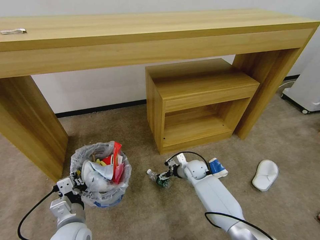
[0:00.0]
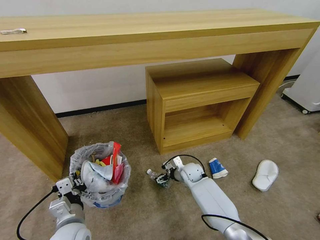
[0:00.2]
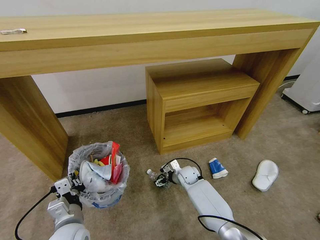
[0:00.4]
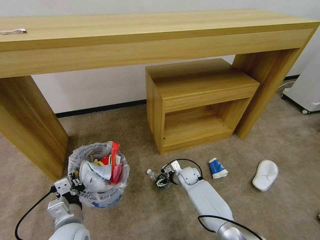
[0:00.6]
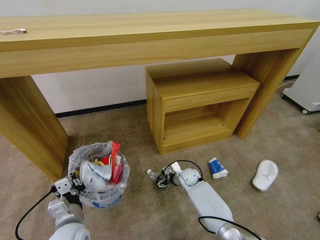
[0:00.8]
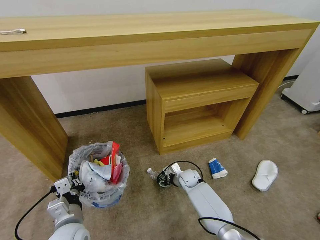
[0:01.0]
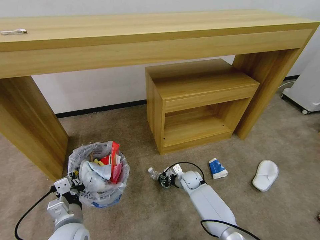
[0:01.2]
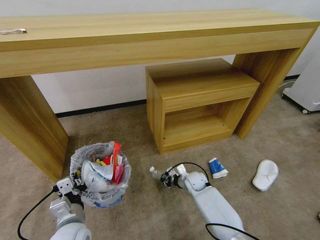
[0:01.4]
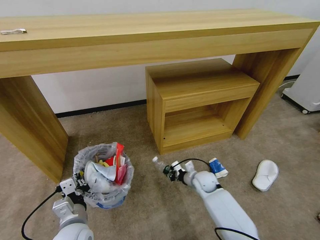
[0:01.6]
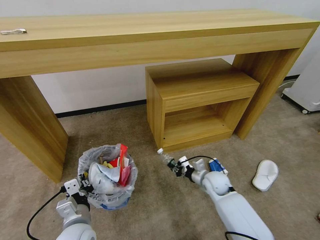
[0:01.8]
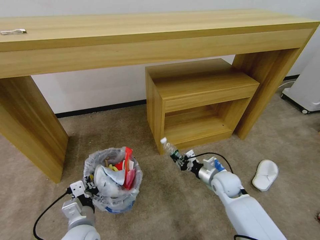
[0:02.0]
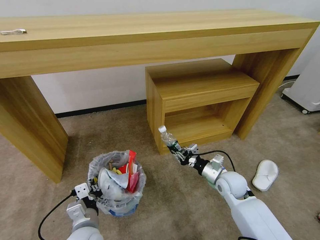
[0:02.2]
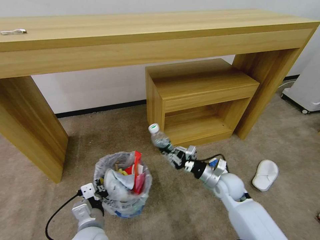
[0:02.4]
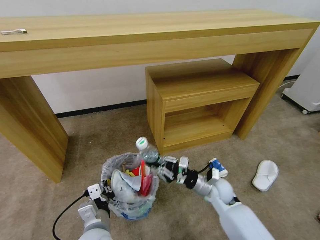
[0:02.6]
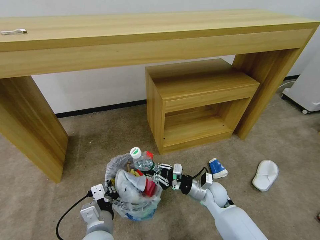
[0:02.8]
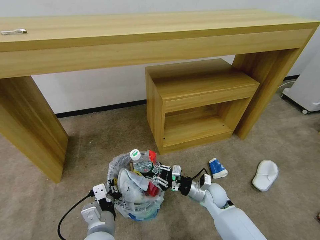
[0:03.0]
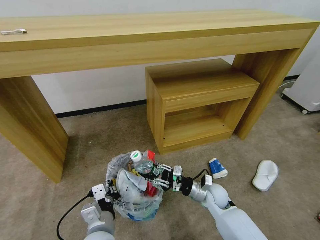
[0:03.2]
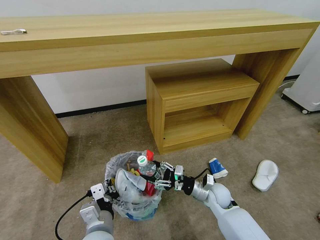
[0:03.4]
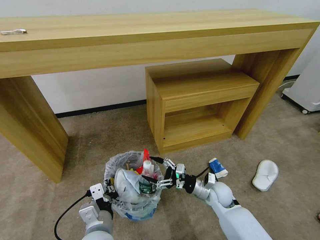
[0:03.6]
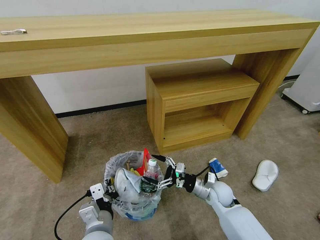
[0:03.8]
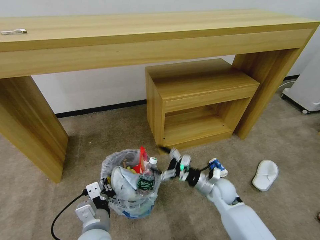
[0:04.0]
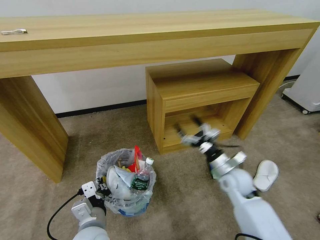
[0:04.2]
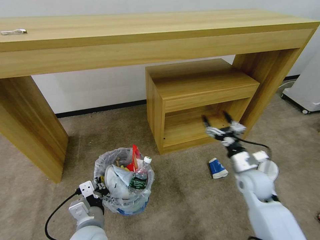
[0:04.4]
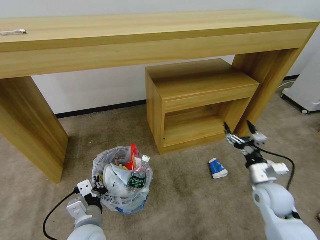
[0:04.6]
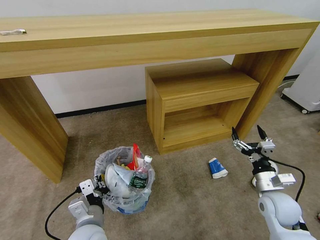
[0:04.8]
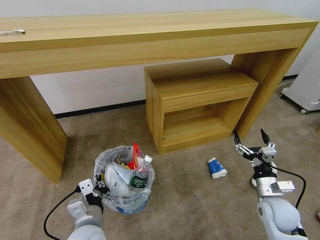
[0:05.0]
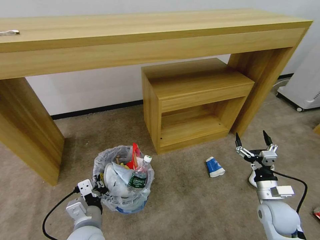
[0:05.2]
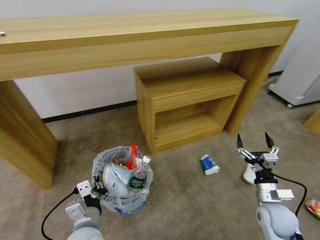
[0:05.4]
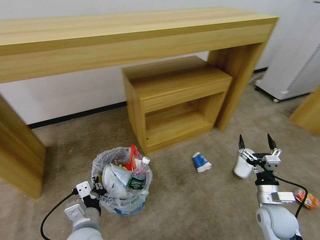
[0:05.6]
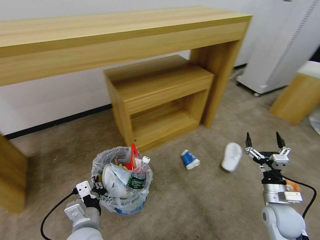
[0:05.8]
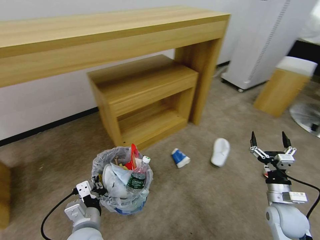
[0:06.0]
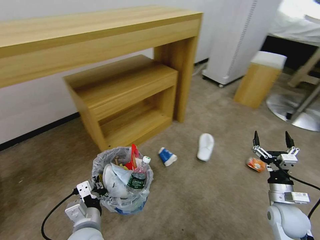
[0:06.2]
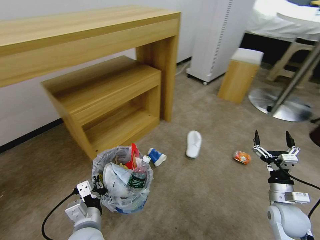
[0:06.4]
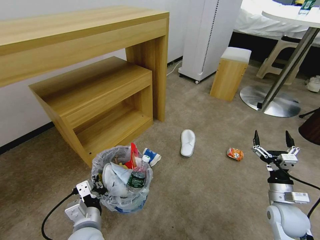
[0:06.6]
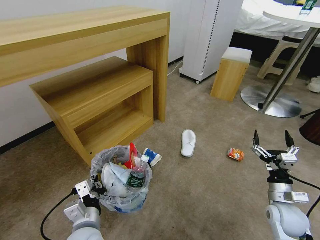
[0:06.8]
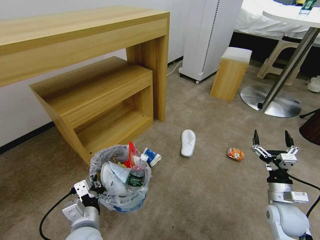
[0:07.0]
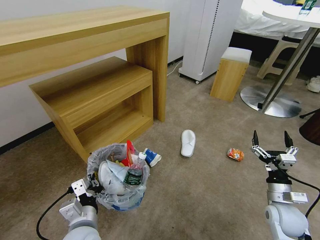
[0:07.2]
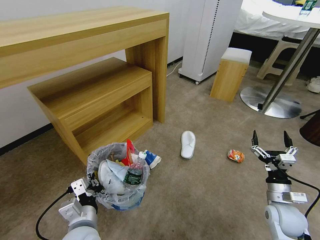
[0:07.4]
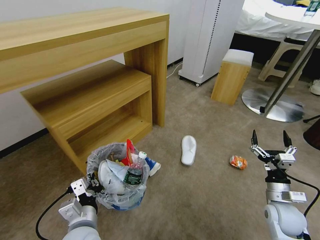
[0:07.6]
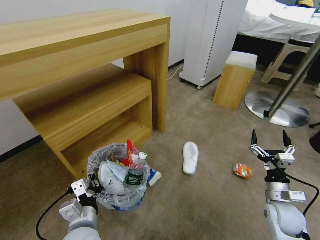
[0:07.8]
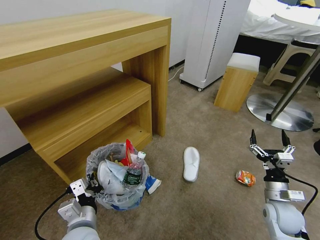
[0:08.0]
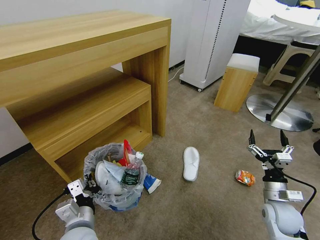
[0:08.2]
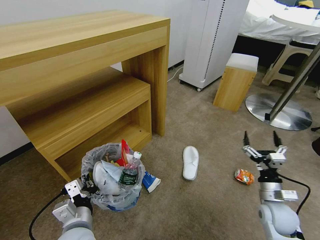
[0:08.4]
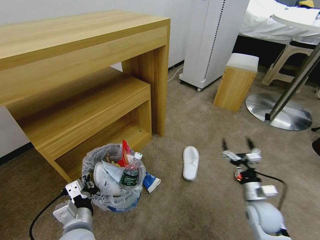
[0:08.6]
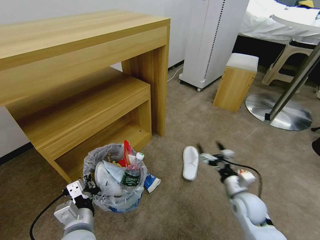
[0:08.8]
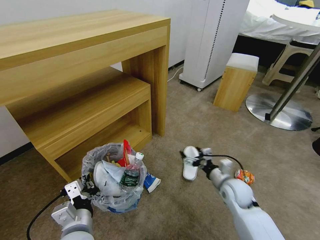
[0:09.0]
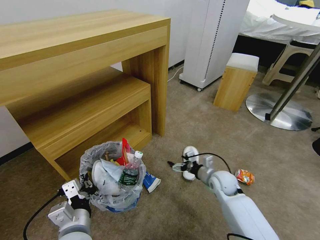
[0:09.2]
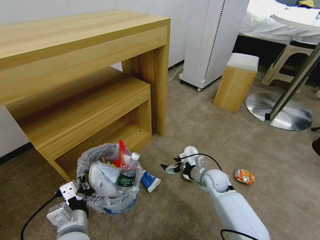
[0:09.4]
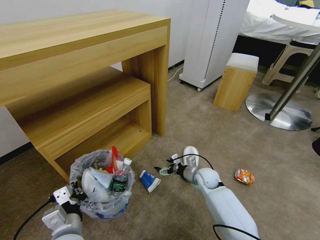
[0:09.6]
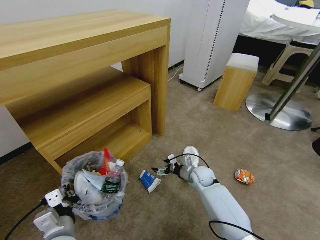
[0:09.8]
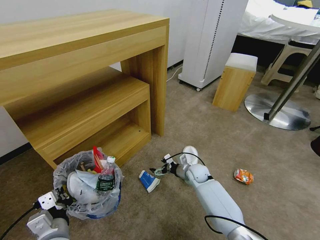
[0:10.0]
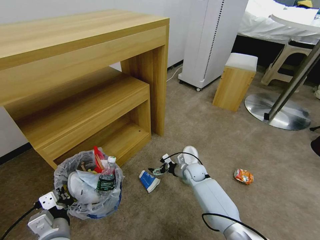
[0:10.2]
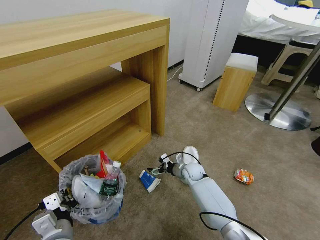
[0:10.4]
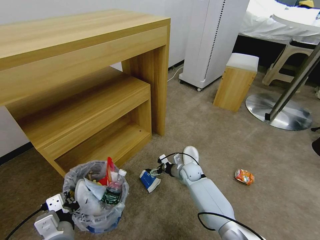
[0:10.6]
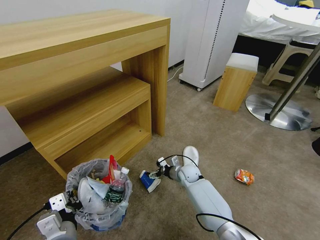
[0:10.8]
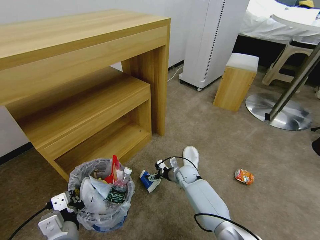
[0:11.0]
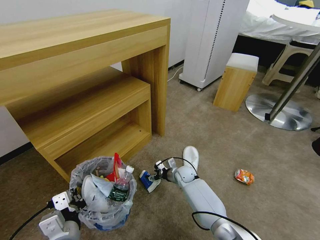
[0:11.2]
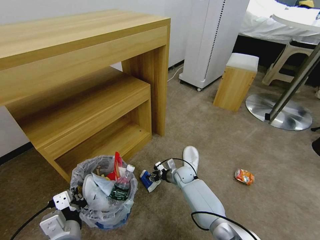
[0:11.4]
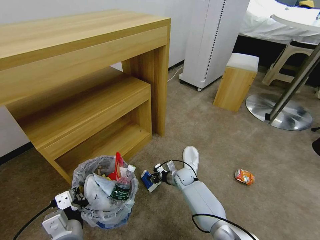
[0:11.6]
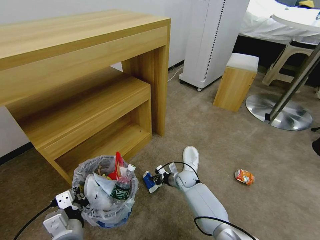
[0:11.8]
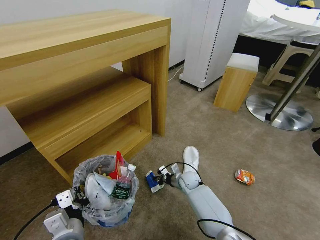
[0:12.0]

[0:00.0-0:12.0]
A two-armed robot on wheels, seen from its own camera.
Task of the whole recording: Pick up the trash bin and place the garbage on the floor into it.
0:00.0 to 0:01.6: The right gripper goes roughly 5 cm backward, and closes.
0:01.6 to 0:03.0: The left gripper goes about 10 cm to the right. The right gripper goes about 5 cm backward.
0:03.0 to 0:04.4: The right gripper heads to the right and upward, covering roughly 15 cm, and opens.
0:04.4 to 0:06.0: The right gripper travels backward, to the right and downward by some 15 cm.
0:07.6 to 0:09.0: The right gripper is displaced to the left and forward by approximately 15 cm.
0:09.0 to 0:10.4: The right gripper shifts approximately 20 cm forward, to the left and downward. The left gripper moves some 5 cm.
0:10.4 to 0:12.0: The right gripper closes its fingers.

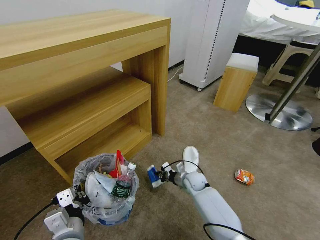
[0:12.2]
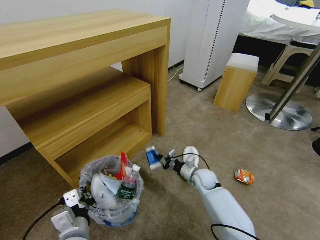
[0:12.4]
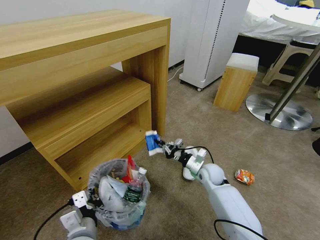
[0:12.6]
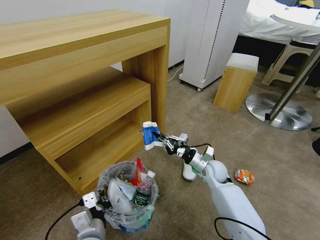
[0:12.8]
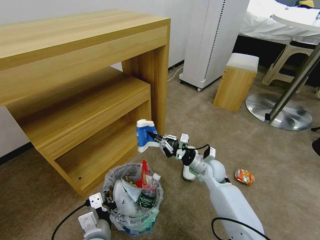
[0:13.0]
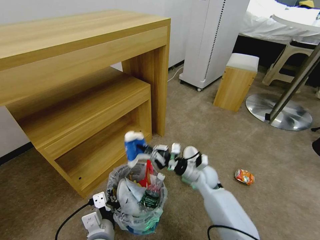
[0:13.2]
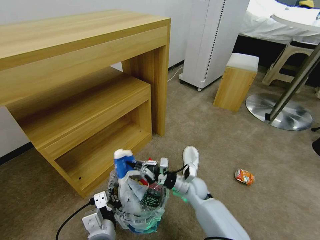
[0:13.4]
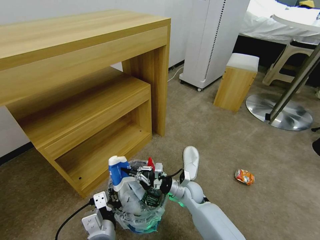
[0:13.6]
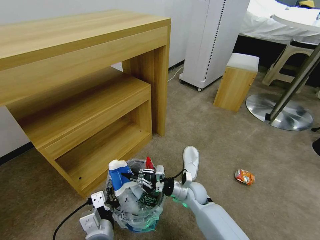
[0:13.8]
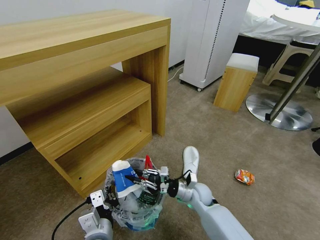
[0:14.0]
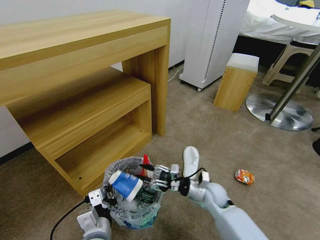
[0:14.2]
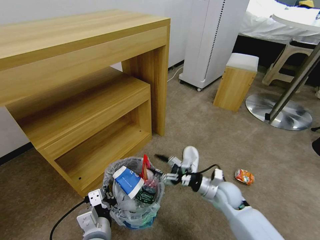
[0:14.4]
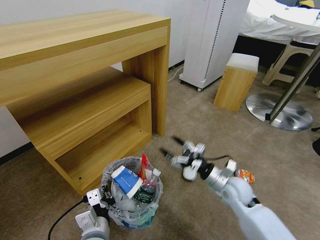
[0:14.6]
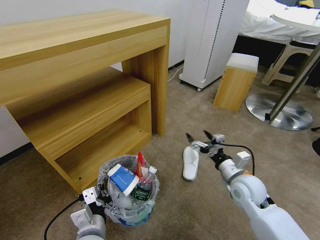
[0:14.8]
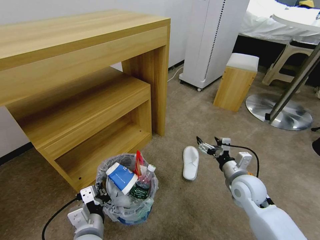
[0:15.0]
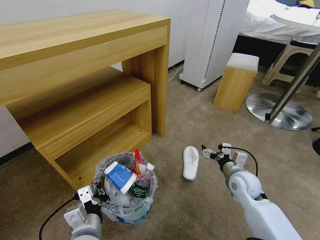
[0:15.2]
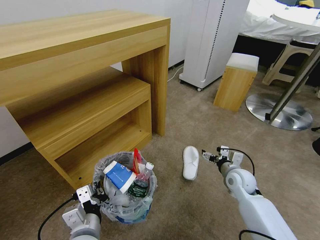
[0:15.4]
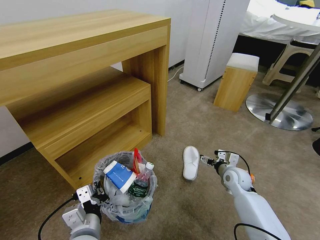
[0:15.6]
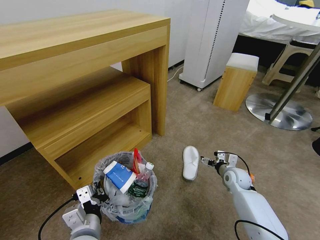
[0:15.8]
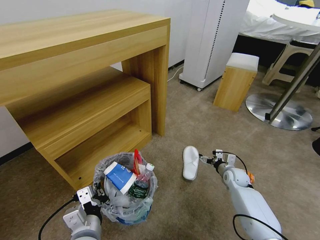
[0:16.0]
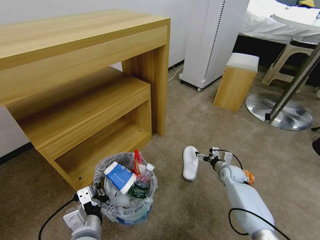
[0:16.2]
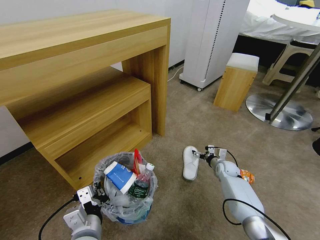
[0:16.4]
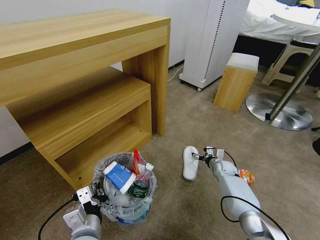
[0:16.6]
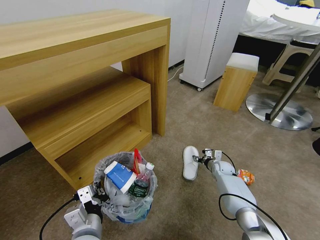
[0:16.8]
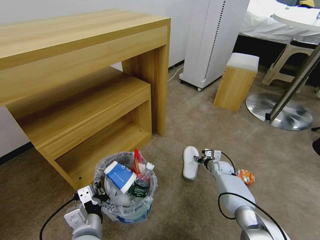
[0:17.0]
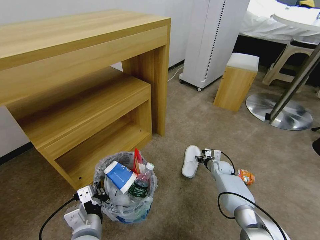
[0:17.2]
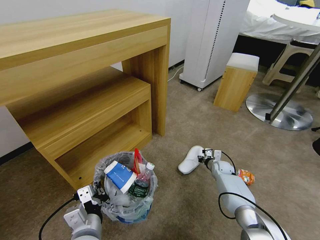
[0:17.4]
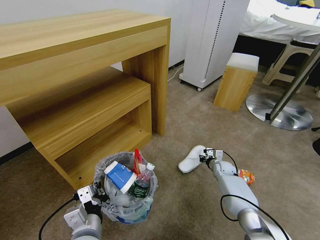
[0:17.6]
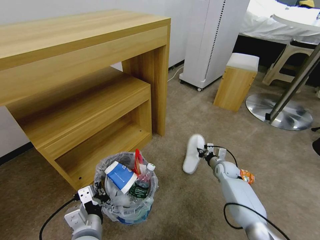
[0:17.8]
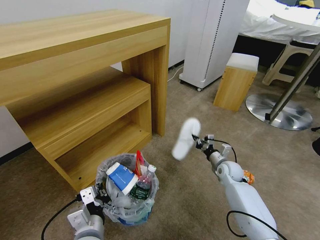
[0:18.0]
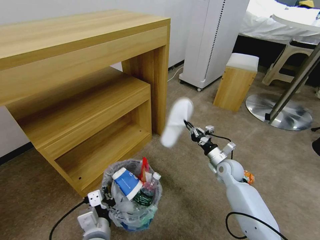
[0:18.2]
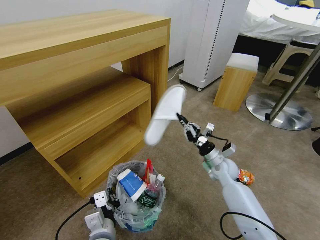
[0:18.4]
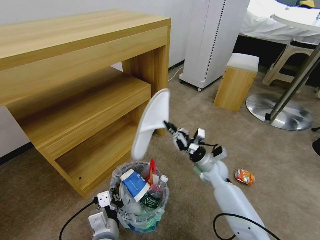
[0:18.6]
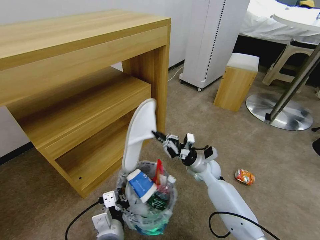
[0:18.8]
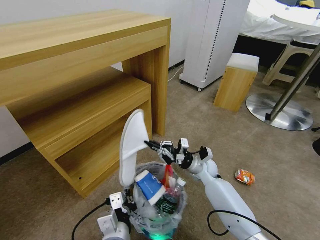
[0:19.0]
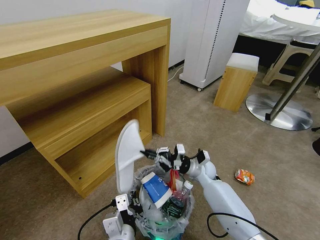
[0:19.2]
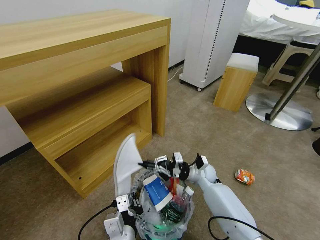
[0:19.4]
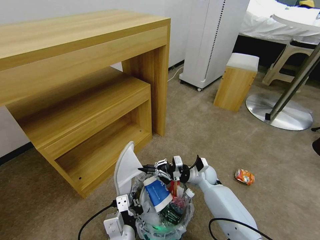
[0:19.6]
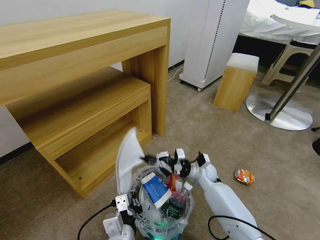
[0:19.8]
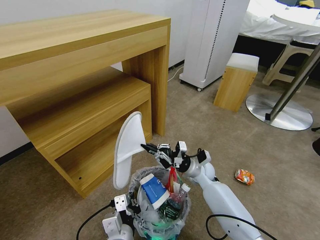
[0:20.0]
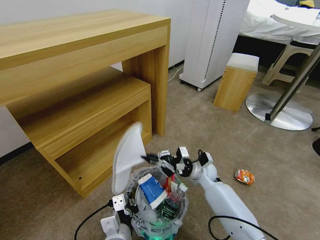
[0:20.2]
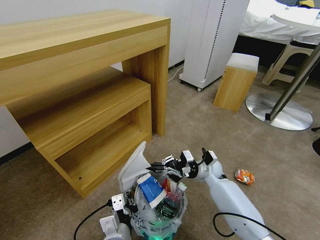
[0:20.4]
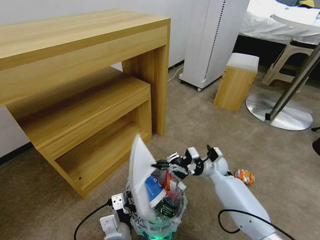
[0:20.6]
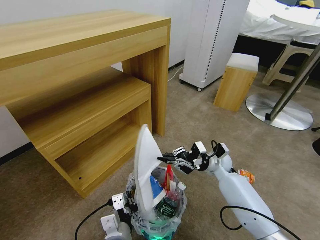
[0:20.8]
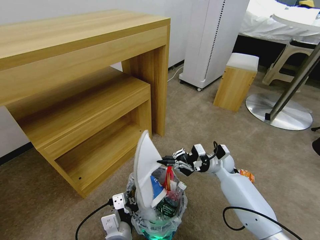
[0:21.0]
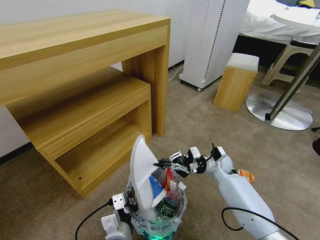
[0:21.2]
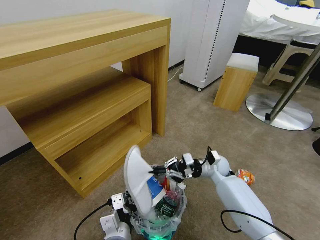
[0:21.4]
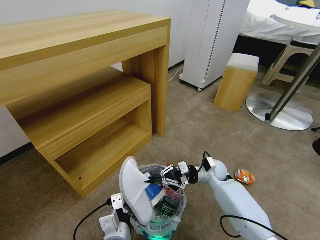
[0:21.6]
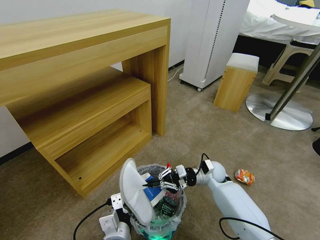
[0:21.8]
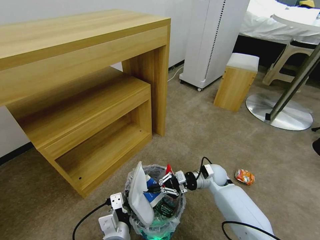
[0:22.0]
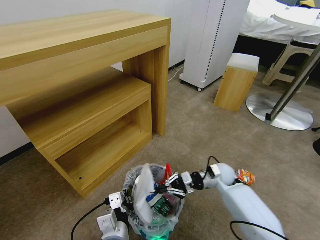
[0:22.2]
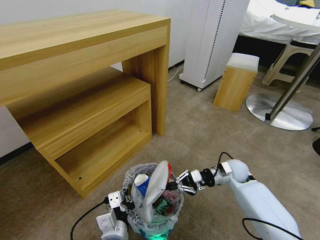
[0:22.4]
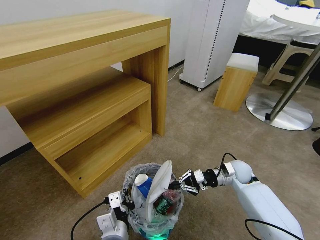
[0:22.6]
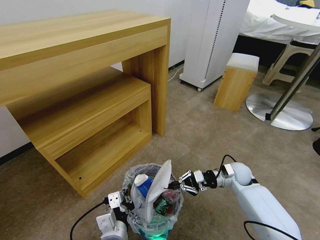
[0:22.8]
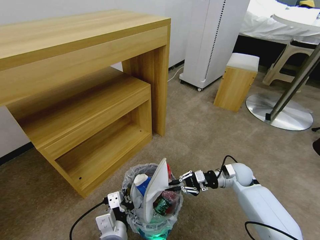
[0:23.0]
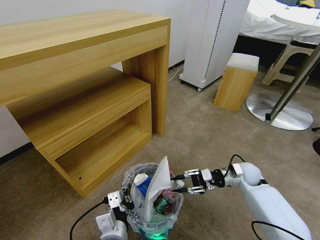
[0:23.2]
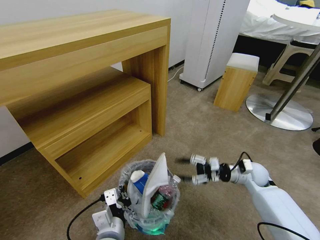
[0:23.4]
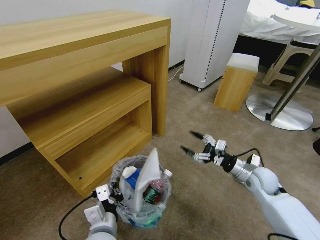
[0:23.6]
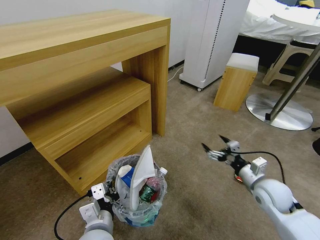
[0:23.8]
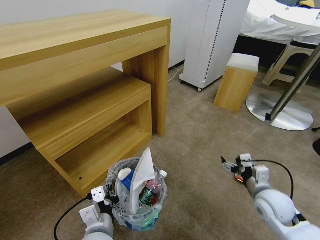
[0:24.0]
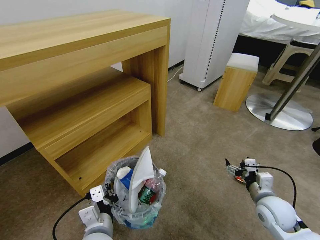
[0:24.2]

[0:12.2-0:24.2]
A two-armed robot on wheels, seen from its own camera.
Task of the whole recording: Pick up the trash bin and place the garbage on the floor into it.
0:12.2 to 0:13.8: The right gripper shifts some 5 cm backward; the left gripper moves to the right, roughly 5 cm.
0:13.8 to 0:15.2: The right gripper moves to the right and upward, approximately 20 cm, and opens its fingers.
0:15.2 to 0:16.6: The right gripper shifts approximately 20 cm downward and forward.
0:16.6 to 0:18.2: The right gripper travels upward and backward by approximately 15 cm, and closes its fingers.
0:18.2 to 0:19.8: The left gripper goes approximately 5 cm to the right. Meanwhile the right gripper shifts about 10 cm to the left.
0:19.8 to 0:21.2: The right gripper shifts about 5 cm to the right.
0:21.2 to 0:22.6: The right gripper is displaced to the right by some 5 cm.
0:22.6 to 0:24.2: The right gripper travels backward by some 15 cm, and opens up.
